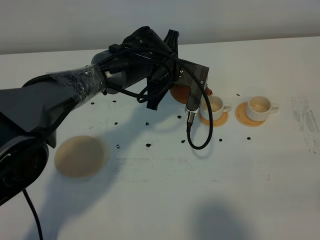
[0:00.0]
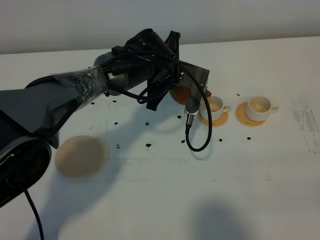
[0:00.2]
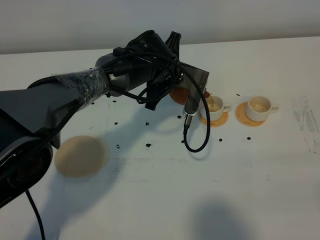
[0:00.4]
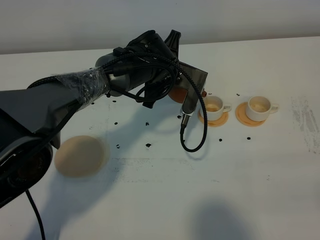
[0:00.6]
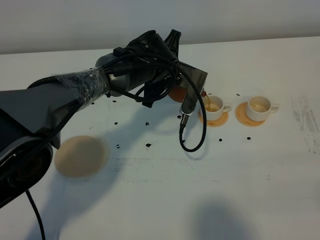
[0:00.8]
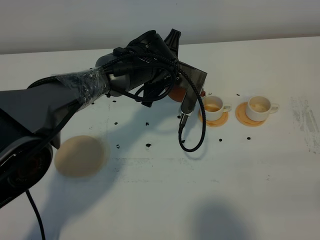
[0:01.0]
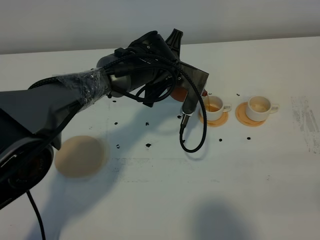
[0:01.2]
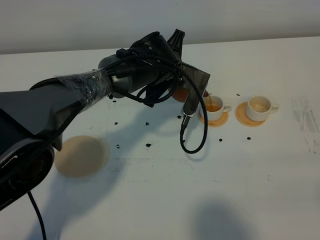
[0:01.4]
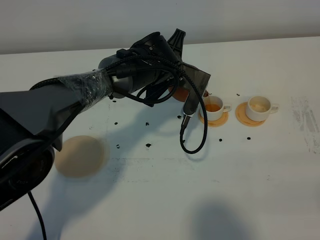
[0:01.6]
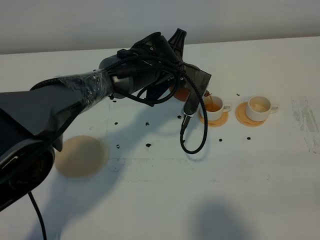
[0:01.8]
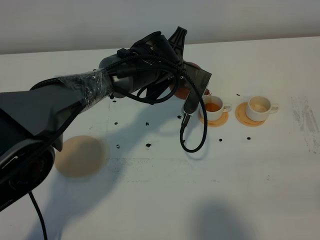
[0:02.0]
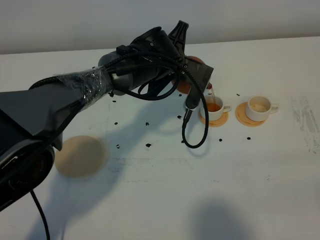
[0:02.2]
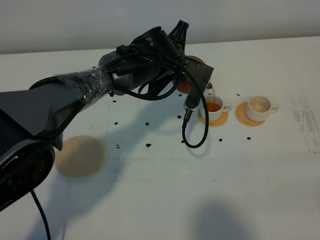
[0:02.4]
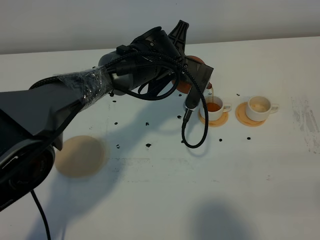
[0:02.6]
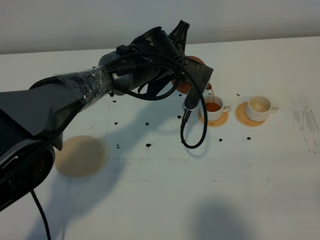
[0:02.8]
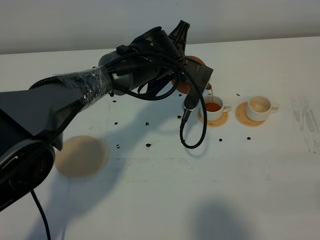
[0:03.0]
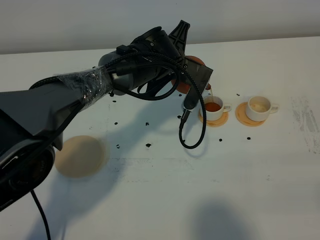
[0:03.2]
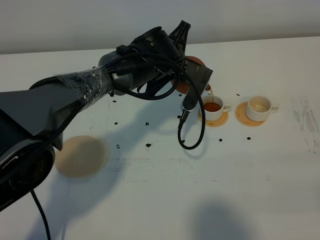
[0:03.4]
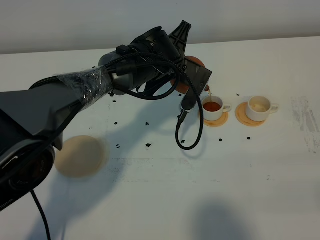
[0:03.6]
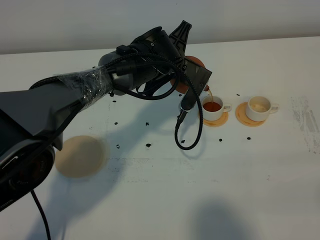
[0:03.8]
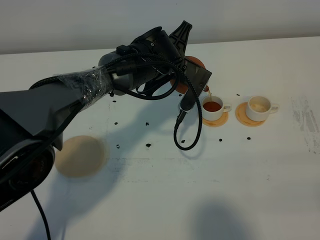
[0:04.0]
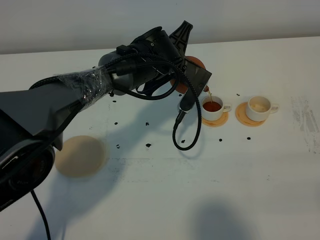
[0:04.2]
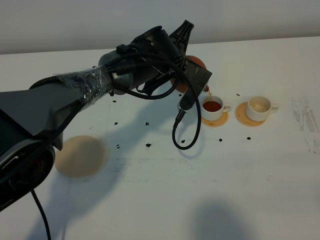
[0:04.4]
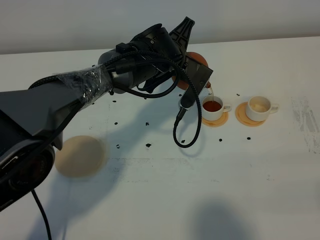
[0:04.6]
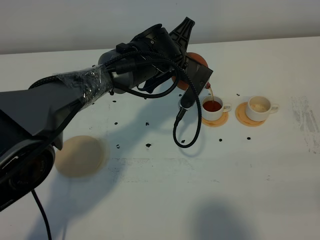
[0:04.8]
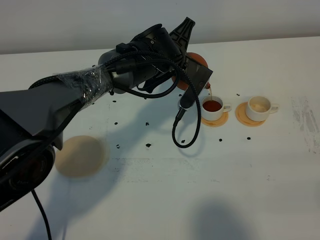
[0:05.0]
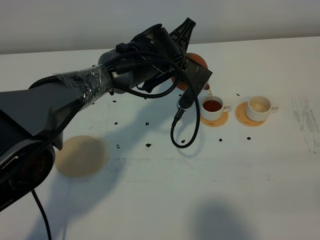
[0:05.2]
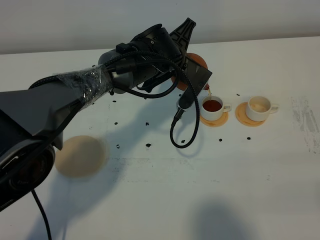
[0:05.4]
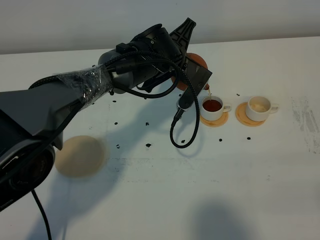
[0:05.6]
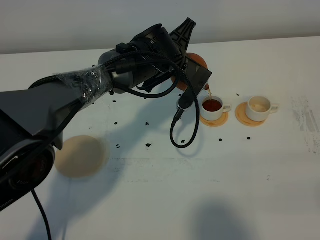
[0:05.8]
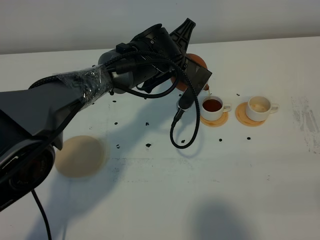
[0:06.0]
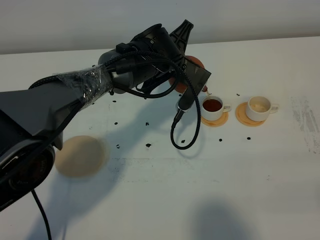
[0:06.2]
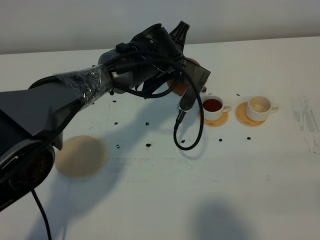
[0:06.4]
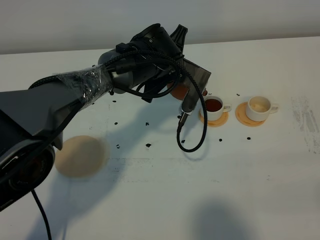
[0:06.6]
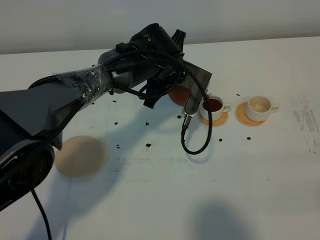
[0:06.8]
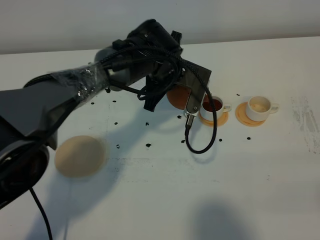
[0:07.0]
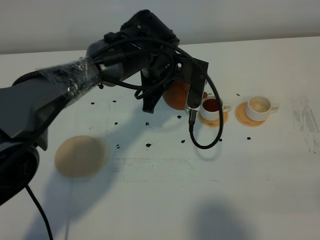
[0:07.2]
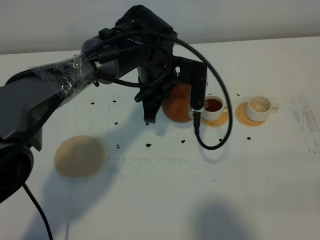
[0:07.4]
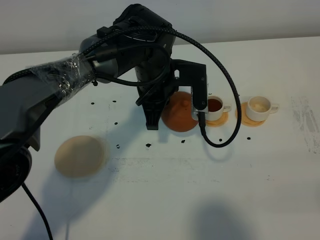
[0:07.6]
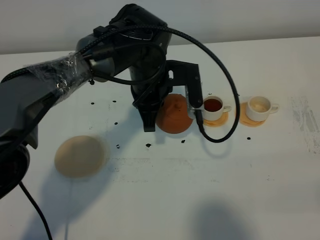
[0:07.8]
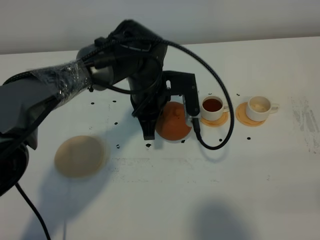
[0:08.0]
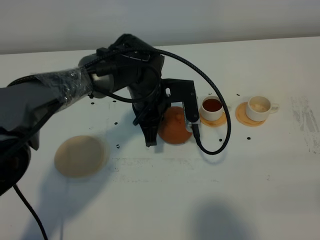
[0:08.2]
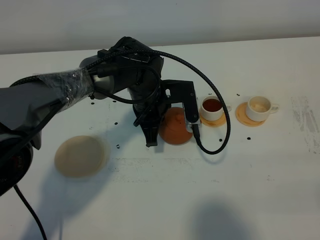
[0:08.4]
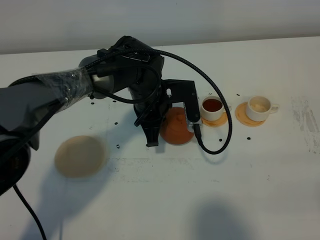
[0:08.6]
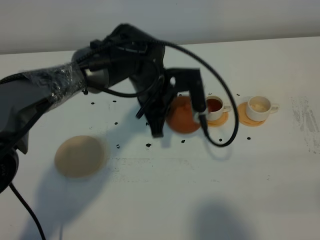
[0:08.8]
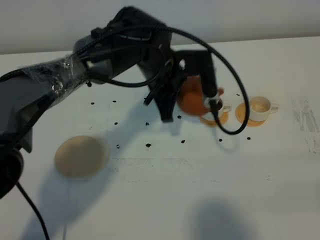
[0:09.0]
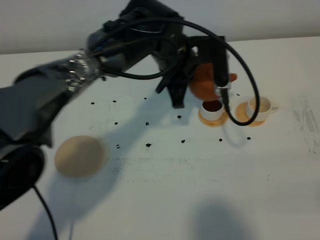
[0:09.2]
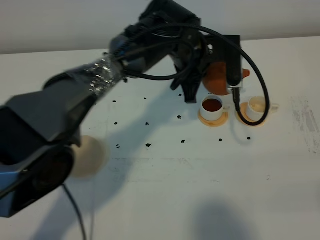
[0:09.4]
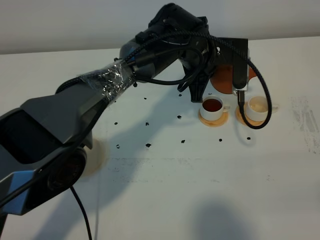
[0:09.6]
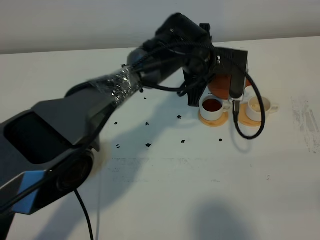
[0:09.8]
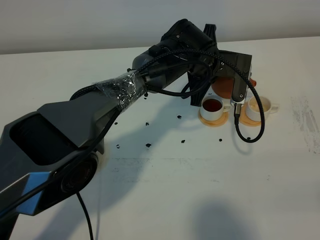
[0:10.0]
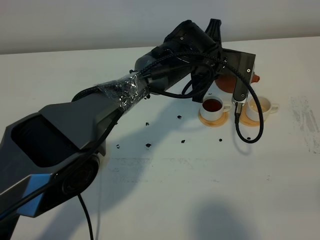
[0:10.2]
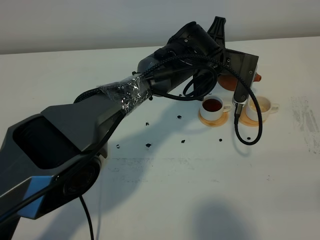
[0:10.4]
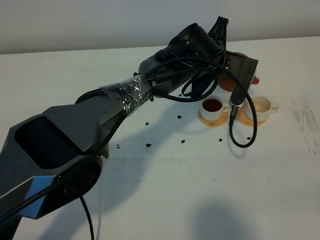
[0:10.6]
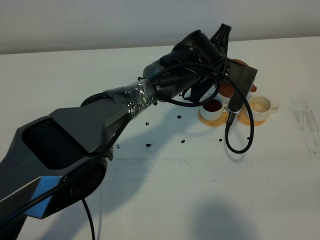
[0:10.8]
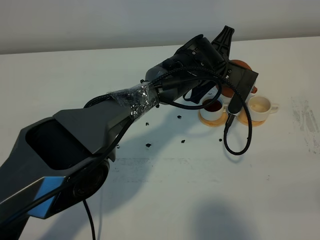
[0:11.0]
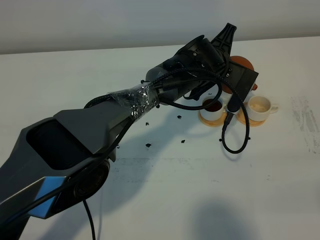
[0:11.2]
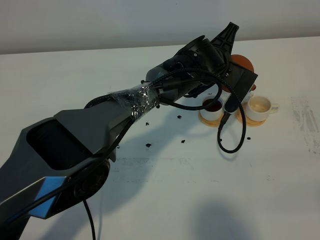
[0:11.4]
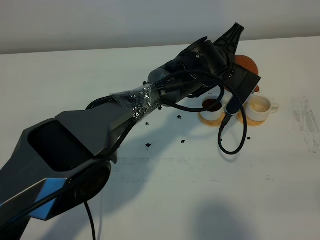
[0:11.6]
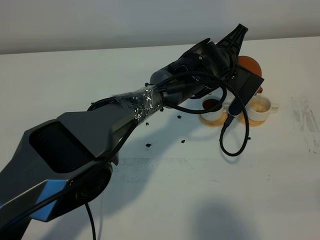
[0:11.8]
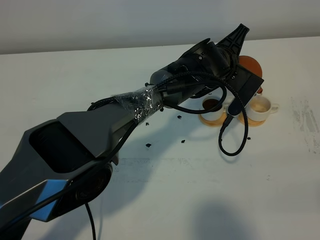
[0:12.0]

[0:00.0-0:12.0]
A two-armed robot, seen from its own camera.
Task of the whole recording: grasp the brown teapot and pour the tea into the two white teacups one by one, put the brown teapot back in its original place.
0:00.0 to 0:01.6: There are only small adjustments of the grippers.
0:01.6 to 0:03.0: Both grippers stay about where they are.
0:03.0 to 0:04.4: There are only small adjustments of the grippers.
0:04.4 to 0:06.0: Both grippers stay about where they are.
0:06.0 to 0:07.6: The left gripper changes place by approximately 5 cm.
0:07.6 to 0:09.0: The grippers move only a little.
0:09.0 to 0:10.4: The left gripper is displaced to the right by some 10 cm.

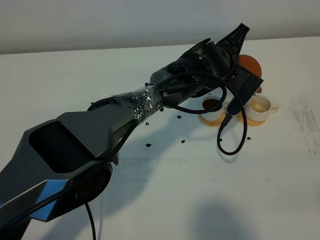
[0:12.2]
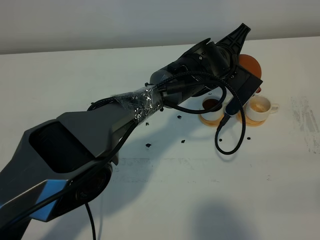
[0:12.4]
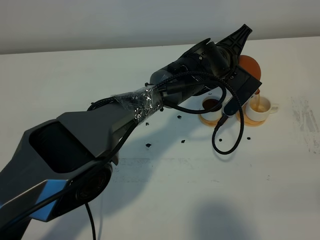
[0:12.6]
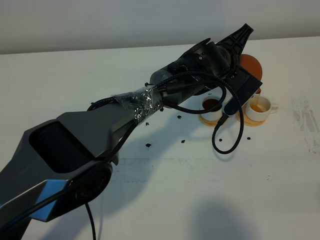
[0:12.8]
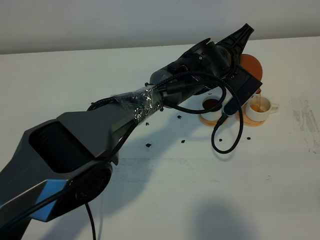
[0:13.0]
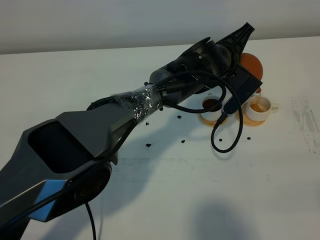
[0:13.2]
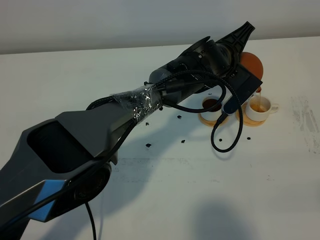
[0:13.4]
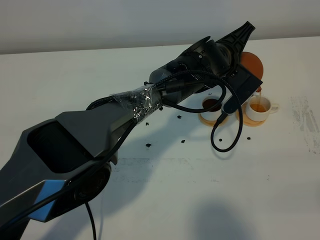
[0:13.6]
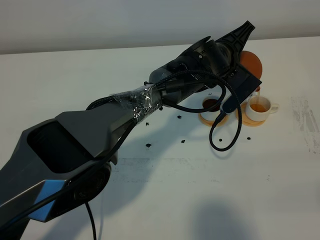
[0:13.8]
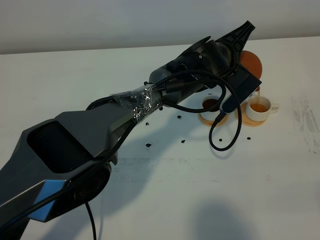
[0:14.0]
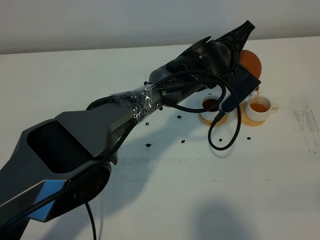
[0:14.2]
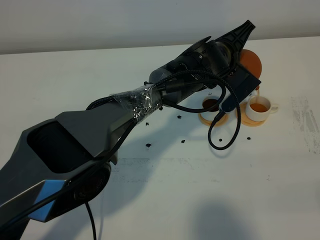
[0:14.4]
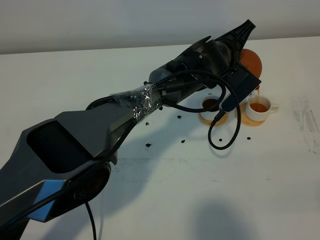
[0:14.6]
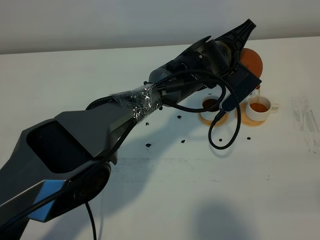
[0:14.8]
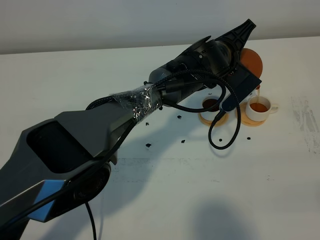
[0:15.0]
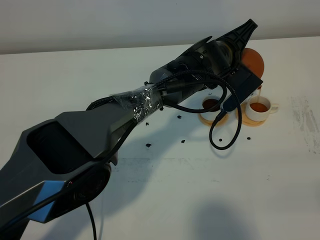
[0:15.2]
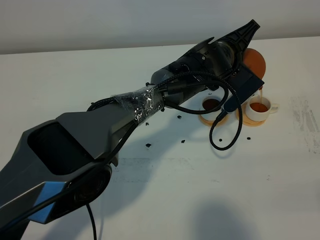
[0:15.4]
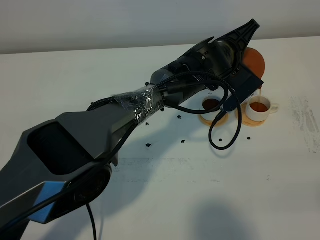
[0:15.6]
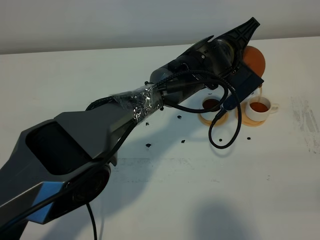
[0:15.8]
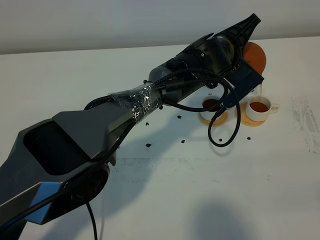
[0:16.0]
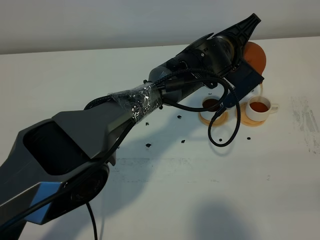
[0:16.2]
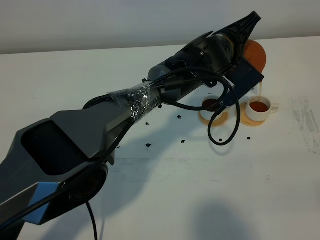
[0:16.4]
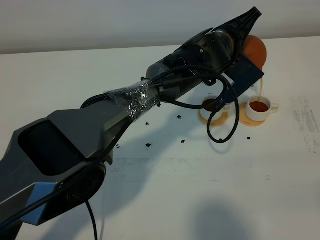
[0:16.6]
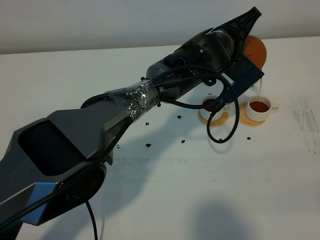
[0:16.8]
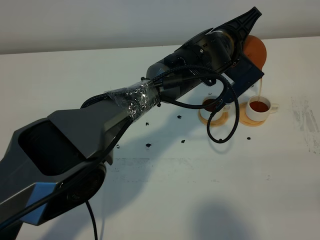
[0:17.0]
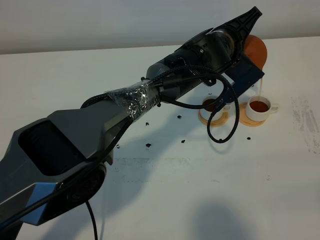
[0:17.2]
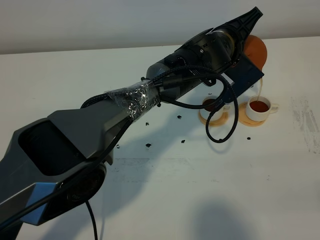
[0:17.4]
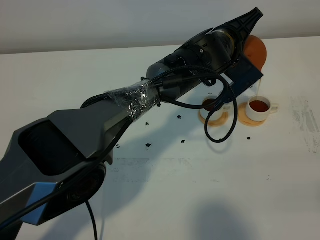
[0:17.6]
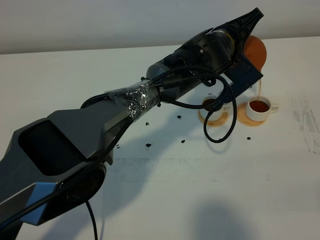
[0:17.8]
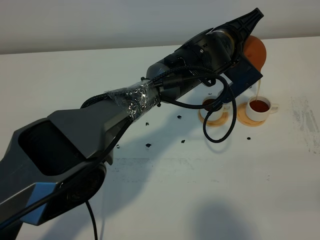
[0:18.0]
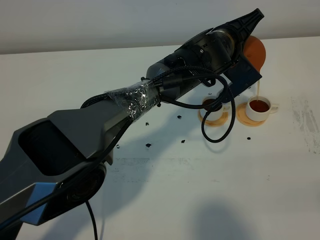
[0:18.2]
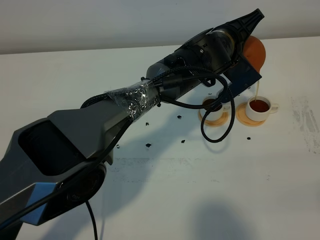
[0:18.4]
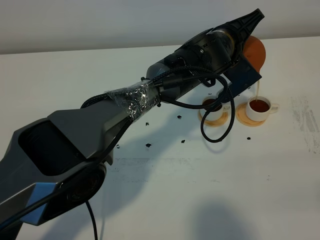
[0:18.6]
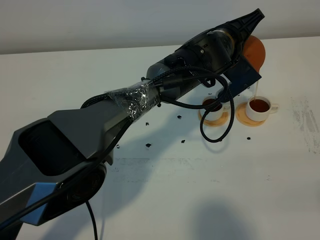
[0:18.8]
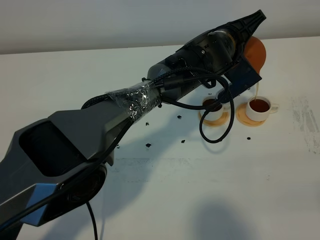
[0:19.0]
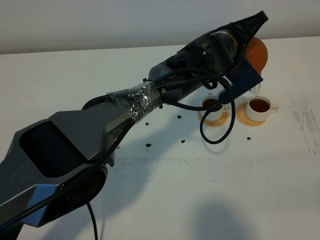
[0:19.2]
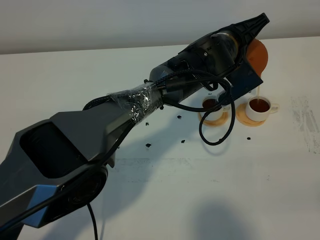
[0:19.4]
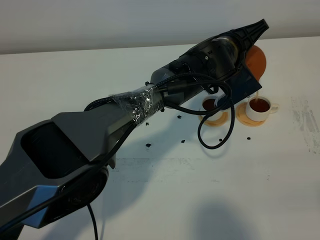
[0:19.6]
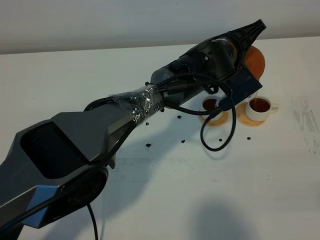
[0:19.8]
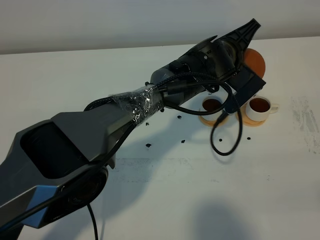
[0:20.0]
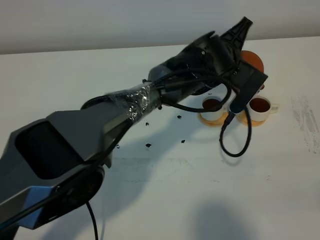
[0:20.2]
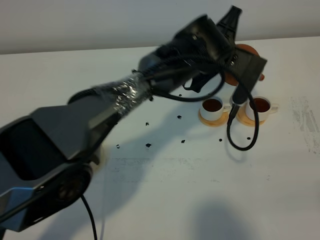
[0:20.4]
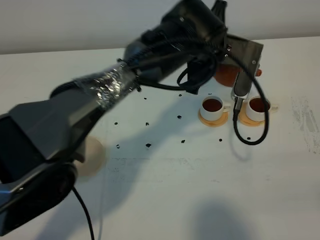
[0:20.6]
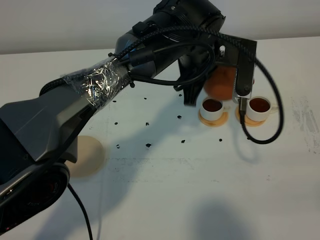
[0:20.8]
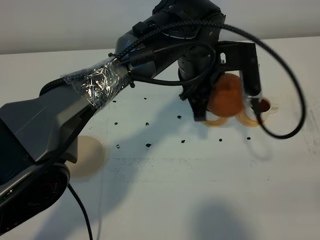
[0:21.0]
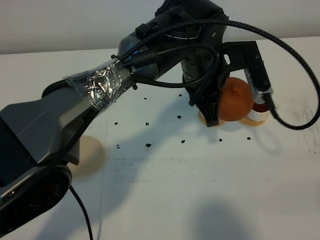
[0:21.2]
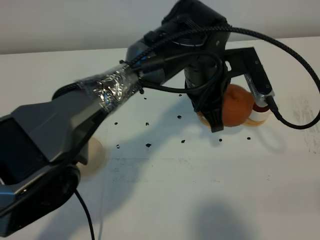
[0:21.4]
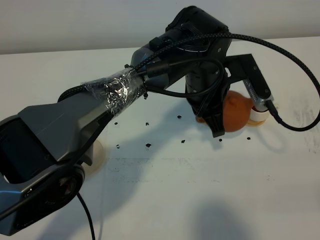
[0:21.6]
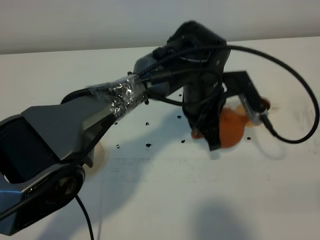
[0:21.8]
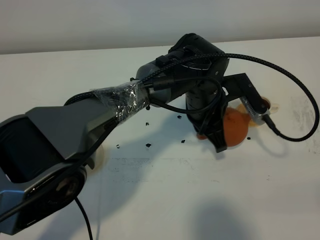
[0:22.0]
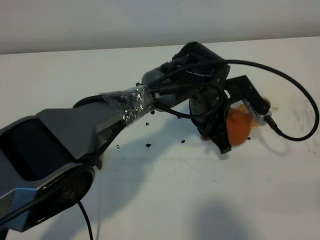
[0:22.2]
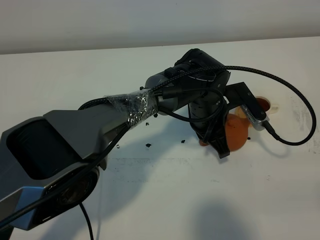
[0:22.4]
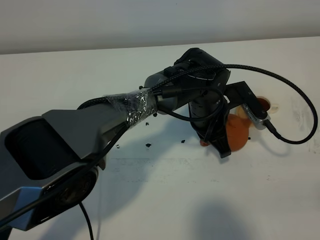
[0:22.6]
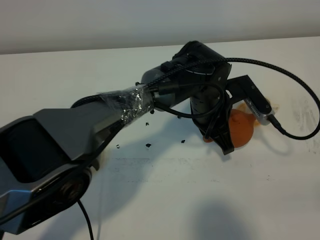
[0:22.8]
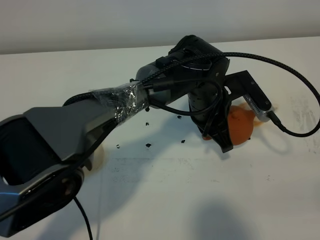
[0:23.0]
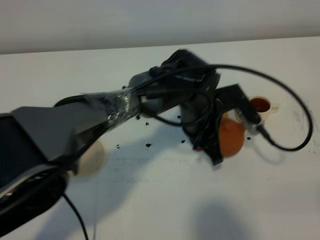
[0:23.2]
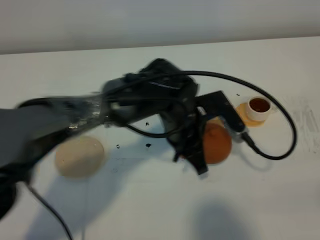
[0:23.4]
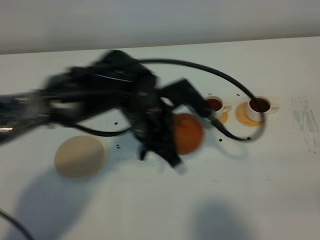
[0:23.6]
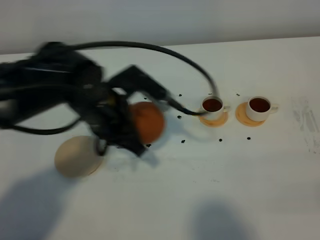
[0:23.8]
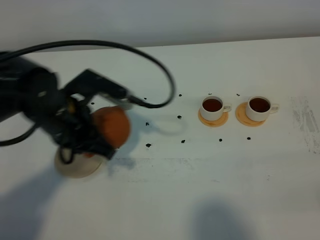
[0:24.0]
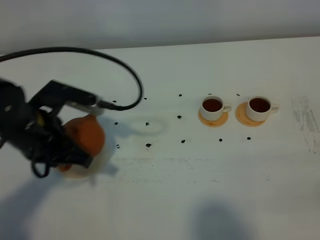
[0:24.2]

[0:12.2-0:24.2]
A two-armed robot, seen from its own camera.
Task of the whole recording: grasp the brown teapot and pour the tea into the two white teacups one by one, put the brown teapot back in its original place.
Step, 0:12.2 to 0:20.6: Pour tea into the teacup with the left gripper.
0:12.2 to 0:13.8: The grippers make only small movements.
0:13.8 to 0:15.2: Neither gripper changes place.
0:15.2 to 0:16.6: The grippers stay close to where they were, moving slightly.
0:16.6 to 0:18.2: Both grippers stay put.
0:18.2 to 0:19.8: The grippers stay close to where they were, moving slightly.
0:19.8 to 0:21.2: The left gripper shifts roughly 5 cm backward.
0:21.2 to 0:22.6: The left gripper heads downward, covering roughly 10 cm.
0:22.6 to 0:24.2: The left gripper travels to the left by approximately 25 cm.
